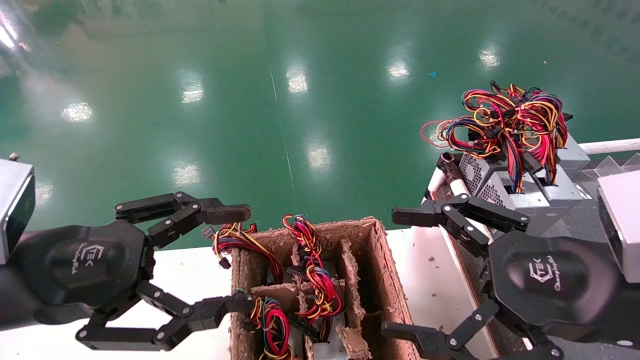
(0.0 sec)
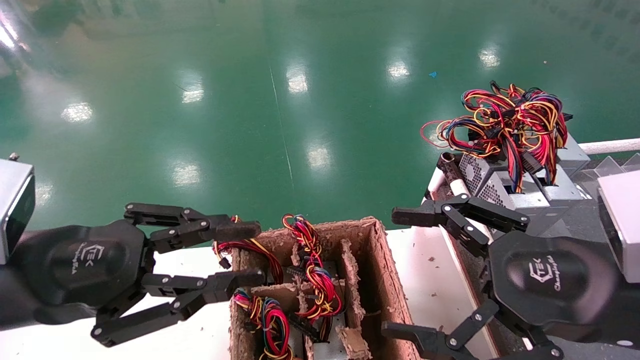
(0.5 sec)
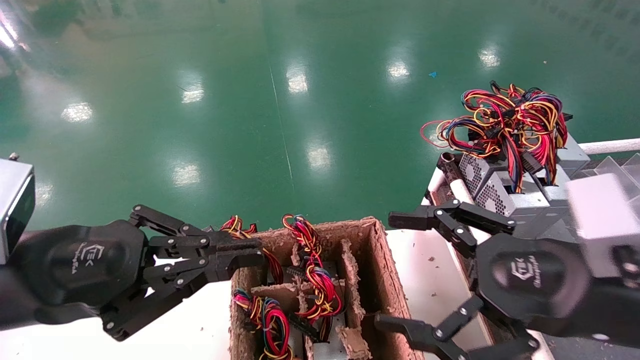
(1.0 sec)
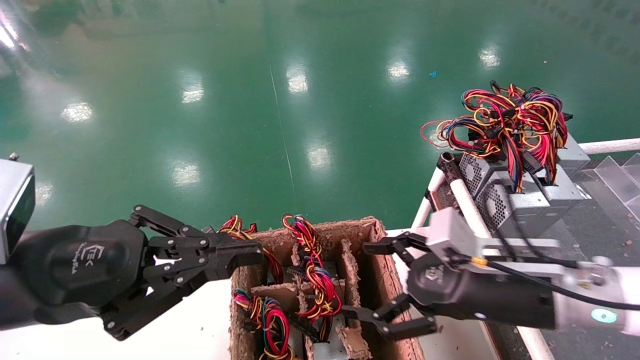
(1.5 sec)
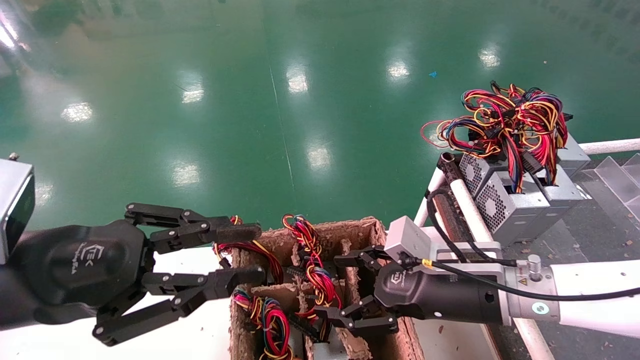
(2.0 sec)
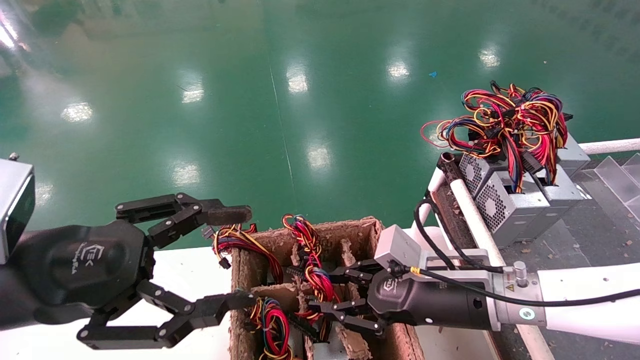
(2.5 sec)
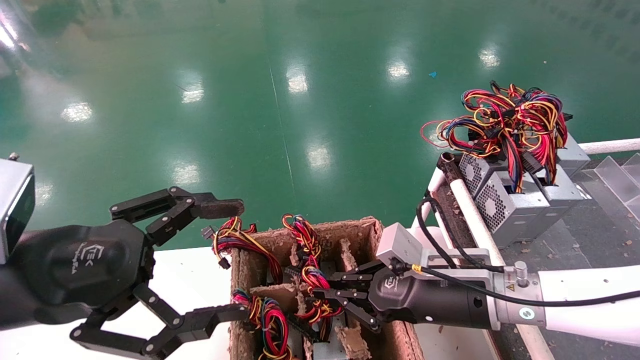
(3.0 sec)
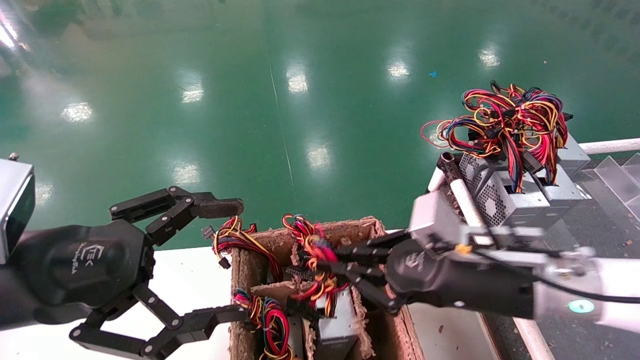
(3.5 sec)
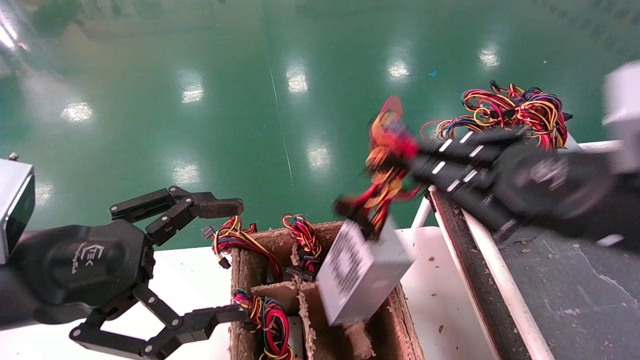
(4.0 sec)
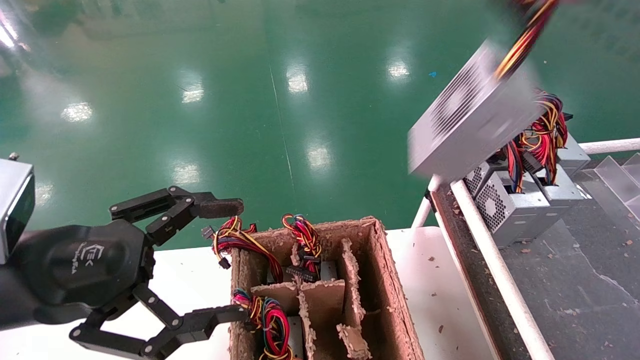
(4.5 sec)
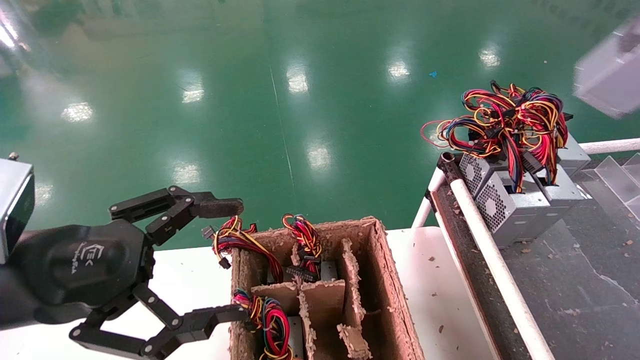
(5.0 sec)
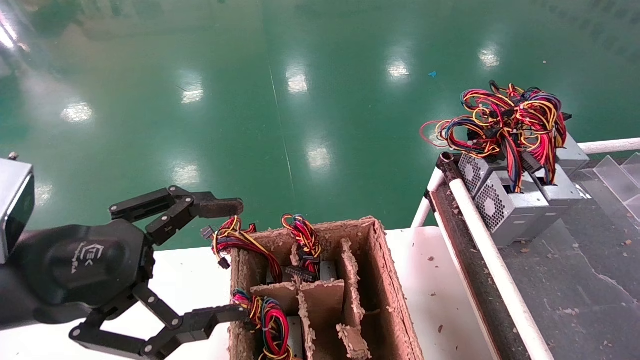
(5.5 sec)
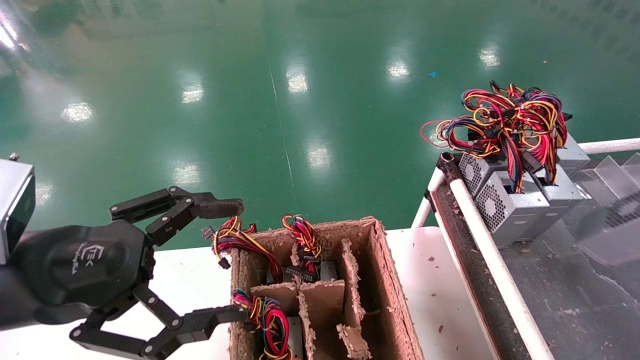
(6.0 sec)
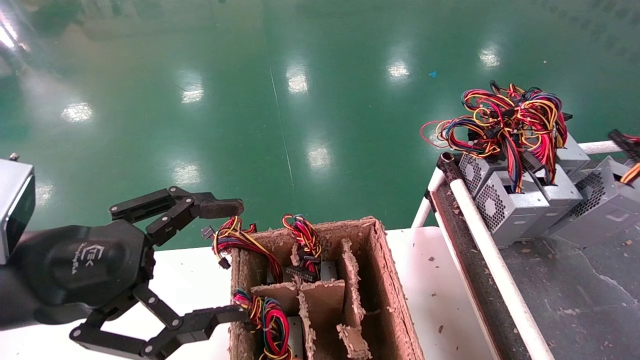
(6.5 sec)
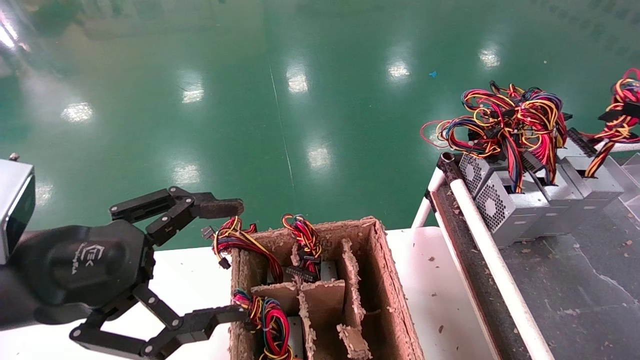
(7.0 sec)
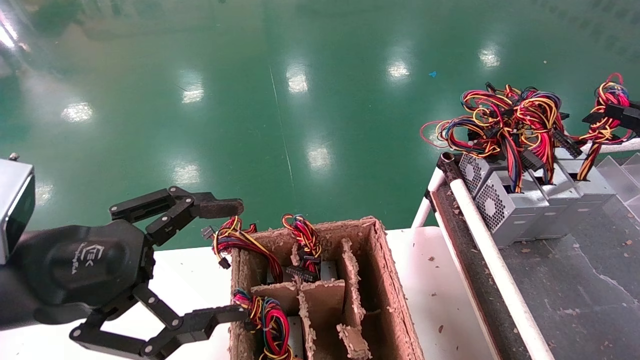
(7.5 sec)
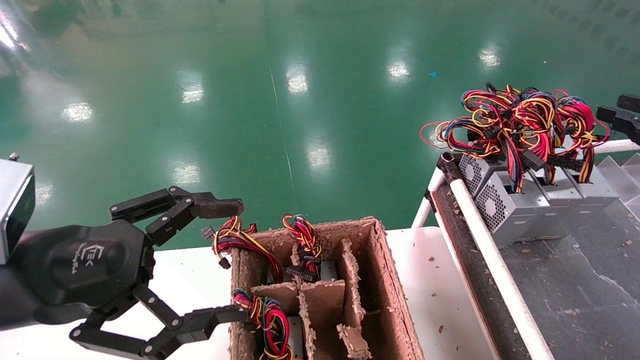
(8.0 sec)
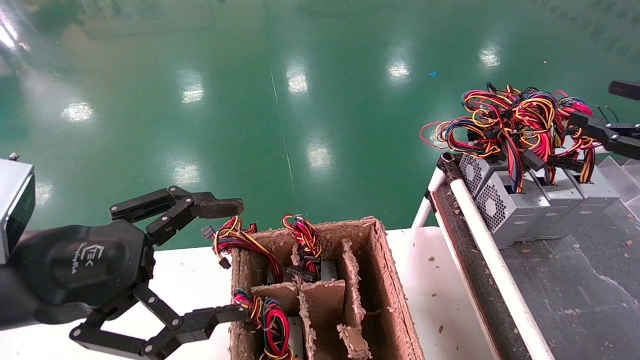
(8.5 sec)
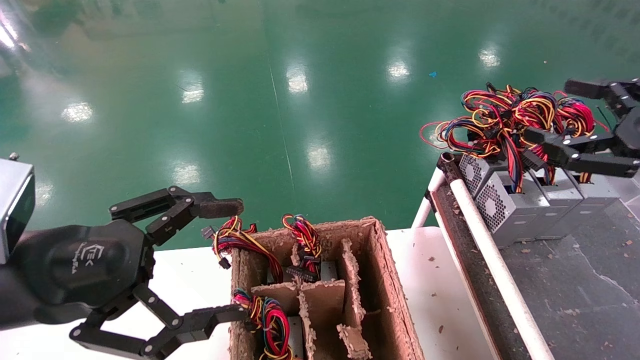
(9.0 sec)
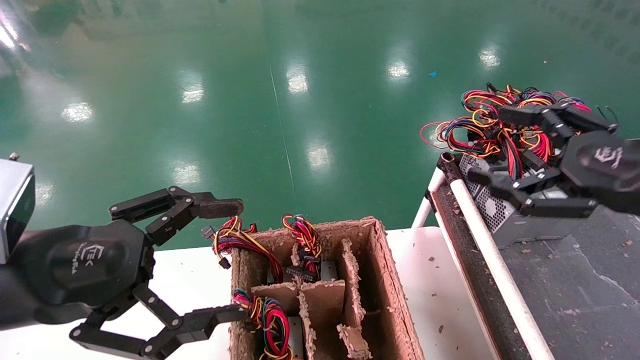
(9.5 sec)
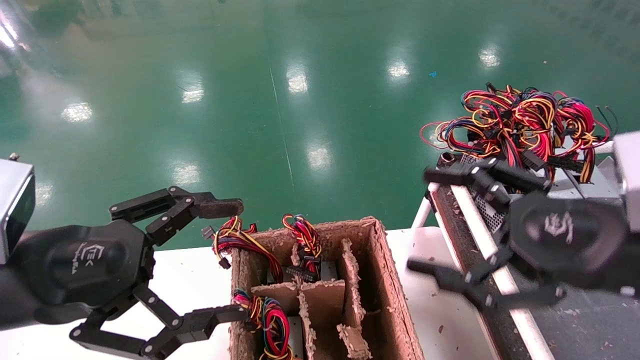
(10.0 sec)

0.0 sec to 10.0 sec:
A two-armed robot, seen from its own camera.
Step, 1.5 sec to 2.5 sec: Grab and lift the power supply from the large box.
Step, 3.0 sec to 8.0 sec: Place the power supply on the operating table.
0.0 sec to 2.0 sec: The right gripper heads forward, downward and to the left, covering roughly 15 cm. Meanwhile the left gripper closes its fingers.
2.0 sec to 4.0 sec: The right gripper moves upward, backward and to the right, some 20 cm, and closes up. The left gripper opens up.
4.0 sec to 6.0 sec: The right gripper moves to the right, approximately 30 cm.
6.0 sec to 8.0 sec: The right gripper moves forward and to the left, some 15 cm.
8.0 sec to 10.0 sec: The right gripper travels to the left by some 20 cm, and opens its fingers.

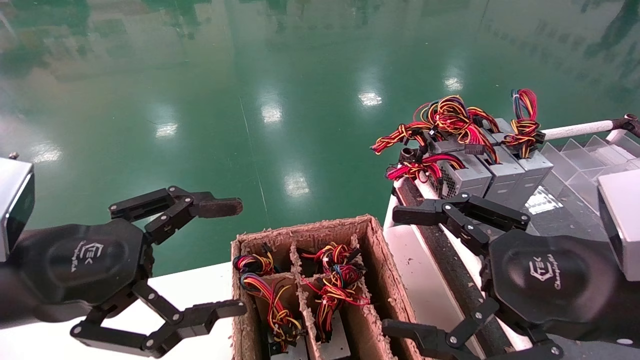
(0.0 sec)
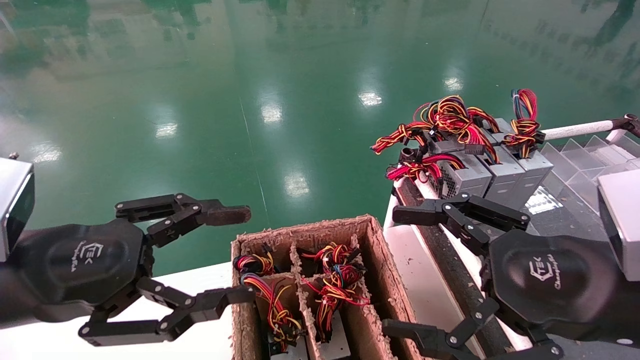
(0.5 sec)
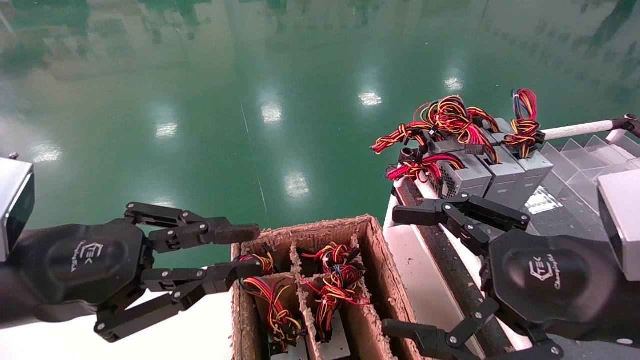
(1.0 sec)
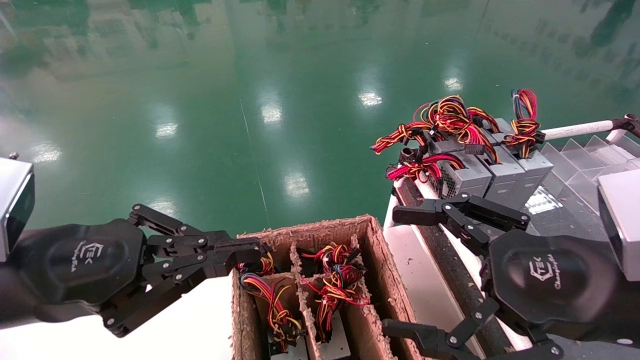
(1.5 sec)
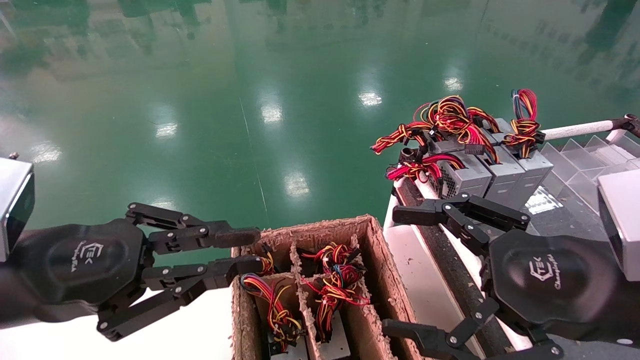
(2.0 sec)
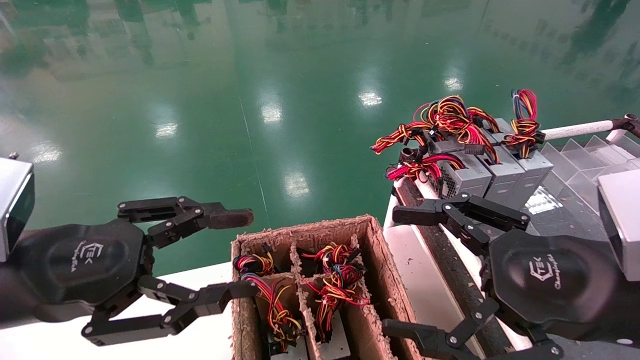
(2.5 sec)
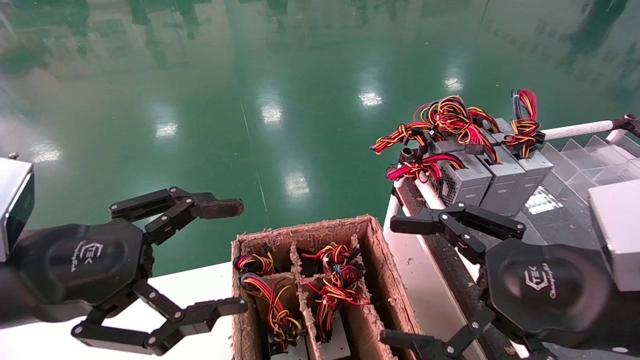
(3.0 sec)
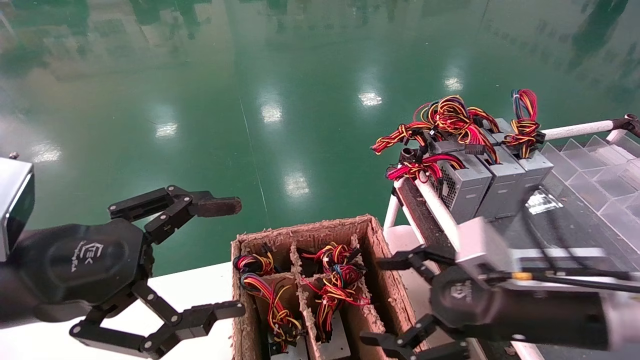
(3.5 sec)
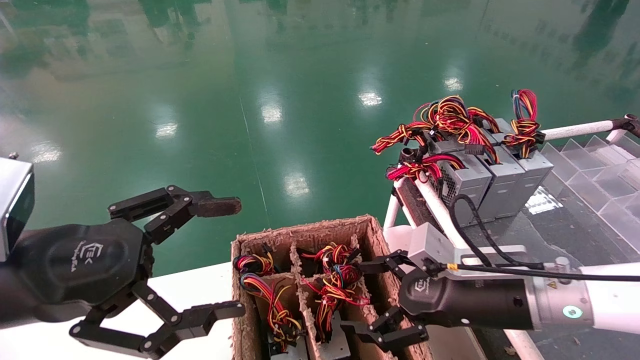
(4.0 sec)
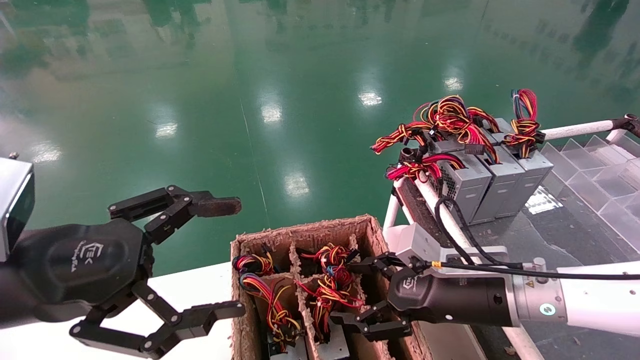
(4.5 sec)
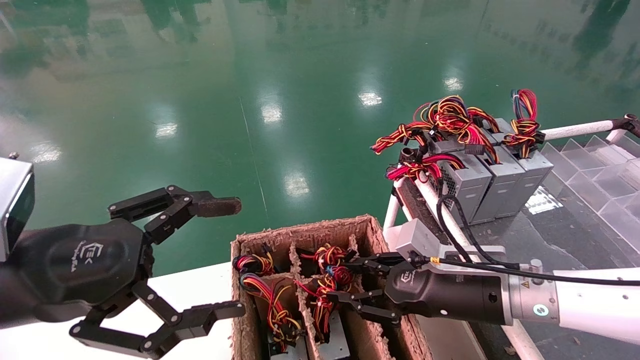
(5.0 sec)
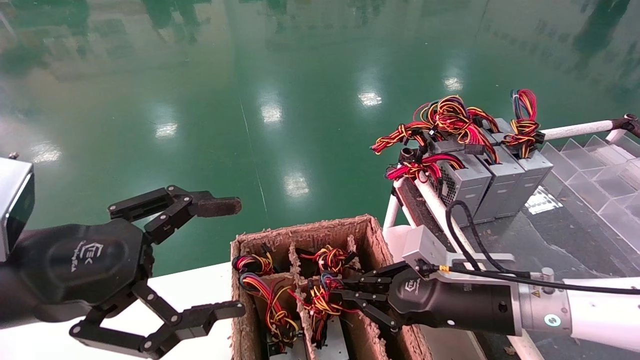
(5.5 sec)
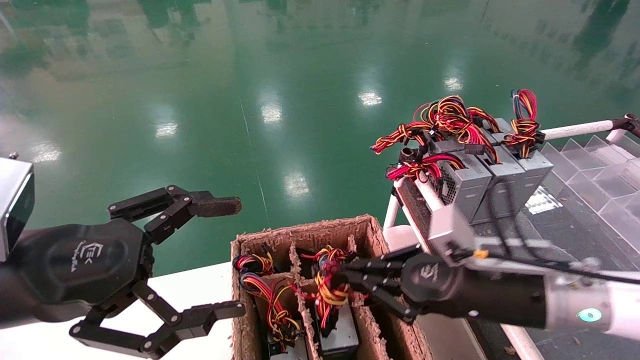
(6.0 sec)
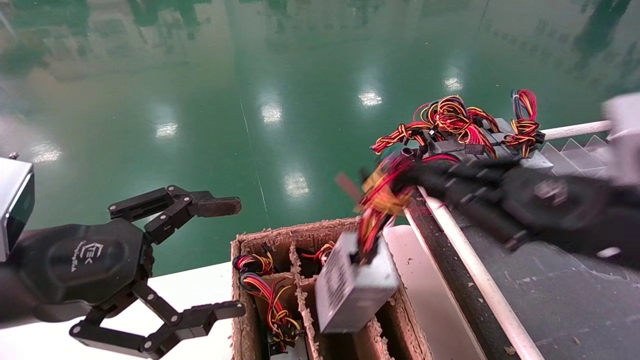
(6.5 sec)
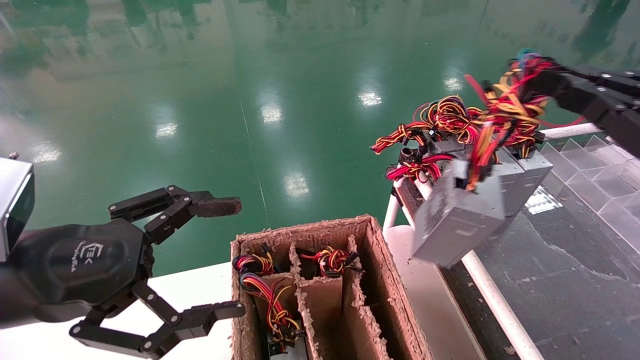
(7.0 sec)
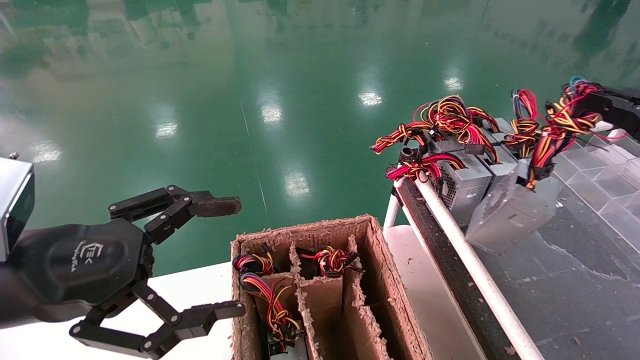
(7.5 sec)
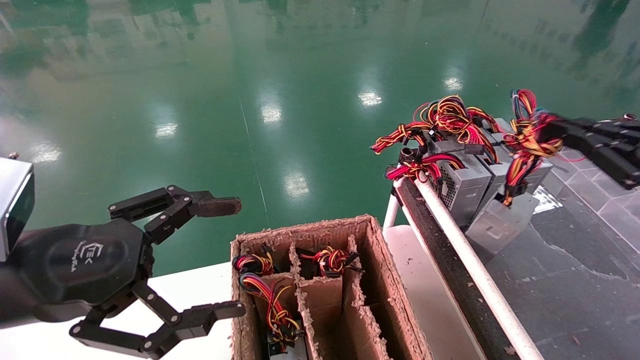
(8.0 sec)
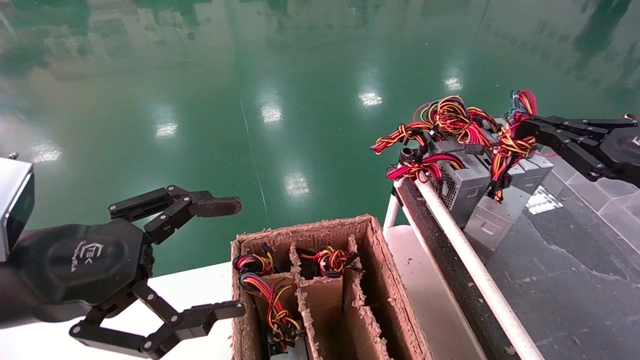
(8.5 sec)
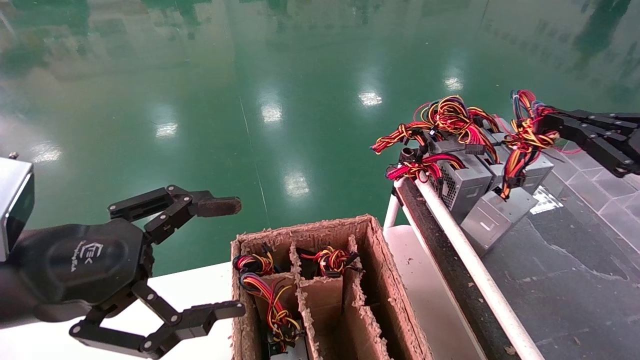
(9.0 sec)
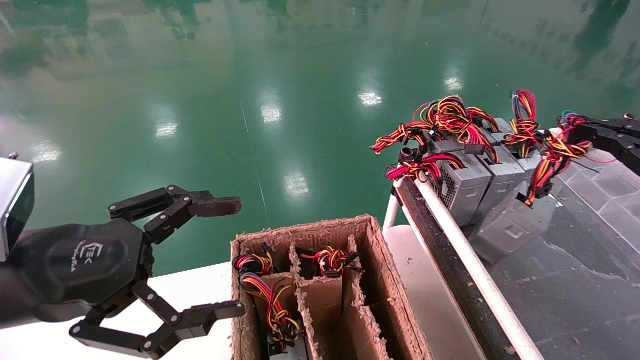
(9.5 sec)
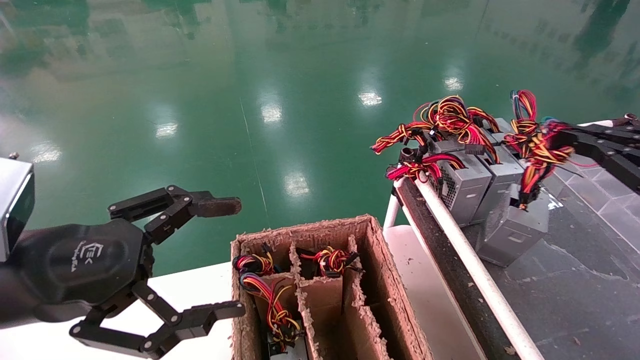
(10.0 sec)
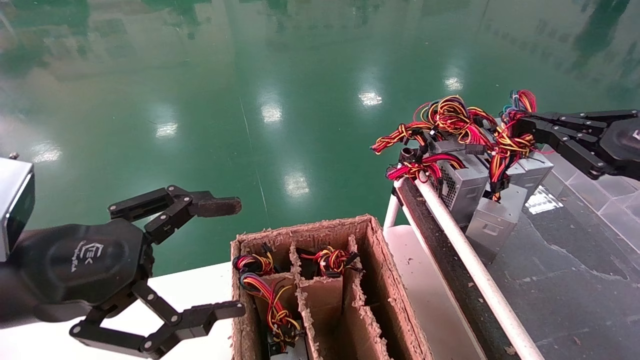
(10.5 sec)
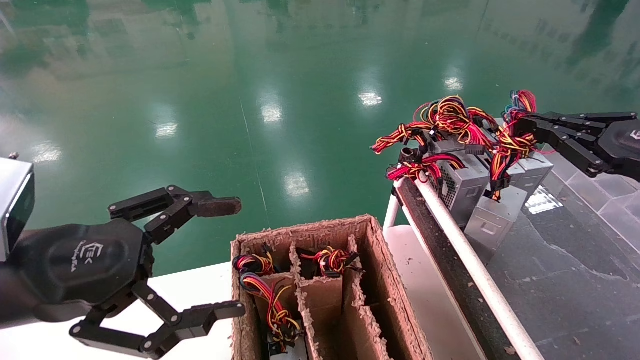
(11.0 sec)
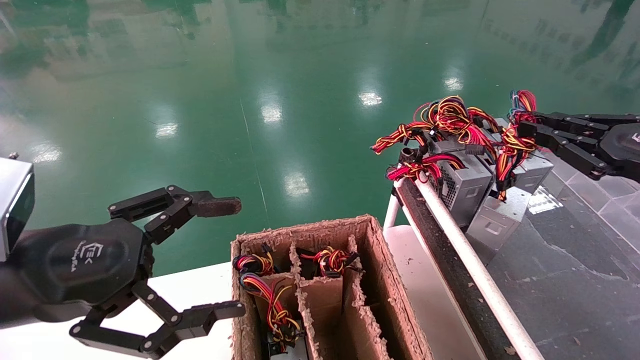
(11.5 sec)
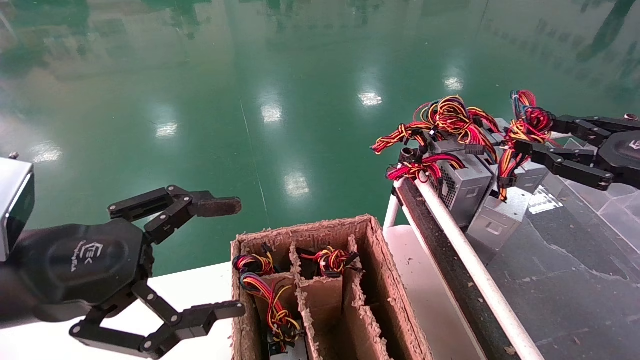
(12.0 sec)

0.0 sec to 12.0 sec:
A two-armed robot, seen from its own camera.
Step, 1.5 sec to 6.0 sec: Grab and lift the power supply from the large box.
Step, 6.5 sec to 11.0 sec: Place the power supply on the operating table.
0.0 sec to 2.0 sec: The left gripper closes its fingers.
2.0 sec to 4.0 sec: The left gripper opens. Meanwhile the right gripper is displaced forward and downward by approximately 15 cm.
4.0 sec to 6.0 sec: The right gripper closes up.
6.0 sec to 8.0 sec: The right gripper moves to the right and upward, about 25 cm.
8.0 sec to 10.0 sec: The grippers move only a little.
10.0 sec to 12.0 sec: The right gripper opens.
